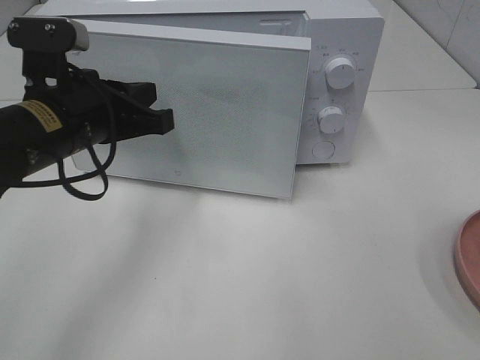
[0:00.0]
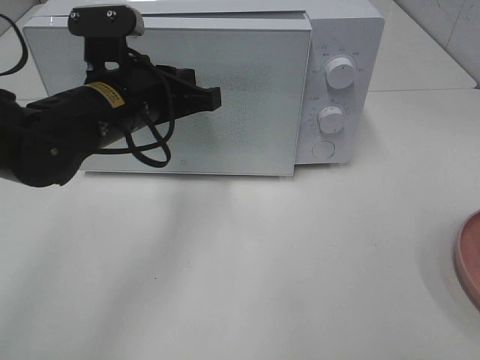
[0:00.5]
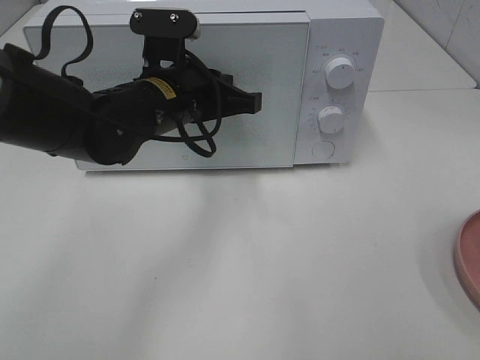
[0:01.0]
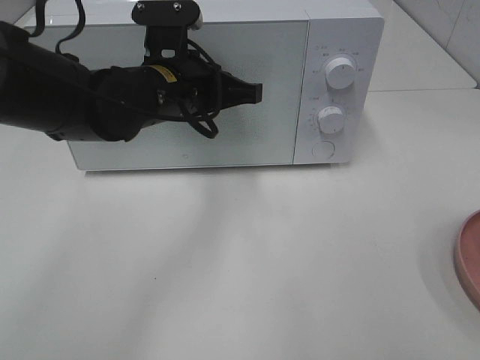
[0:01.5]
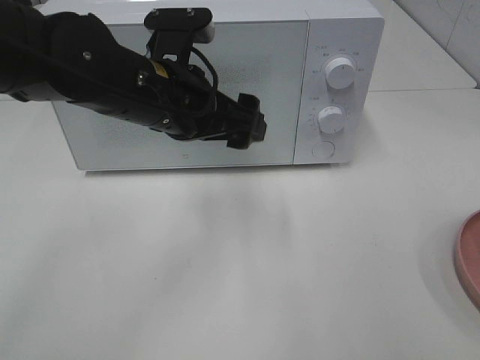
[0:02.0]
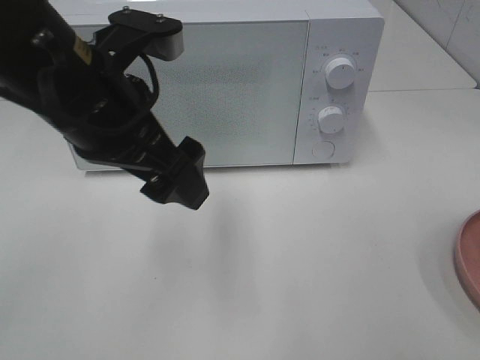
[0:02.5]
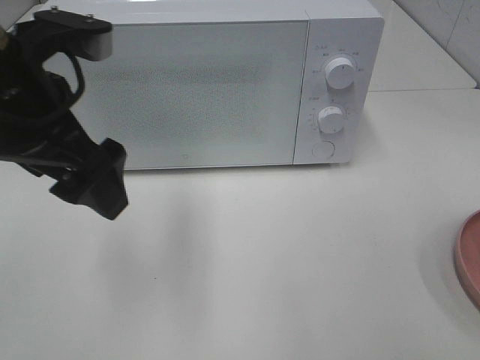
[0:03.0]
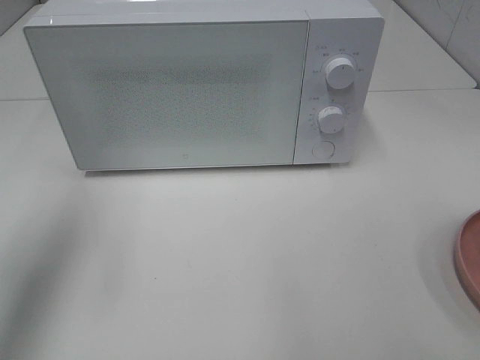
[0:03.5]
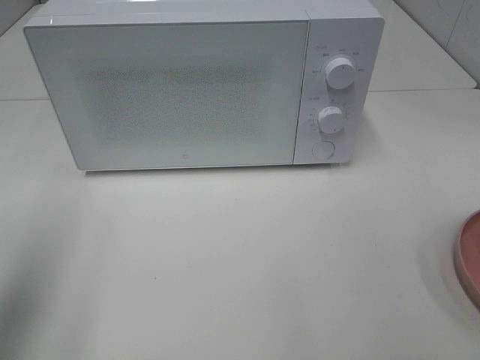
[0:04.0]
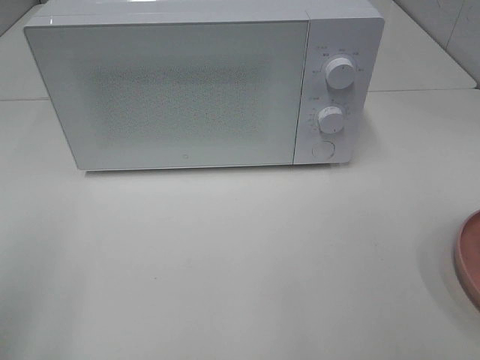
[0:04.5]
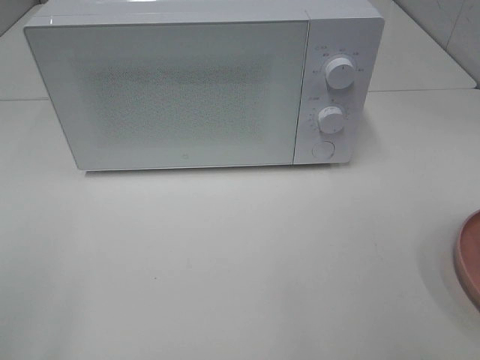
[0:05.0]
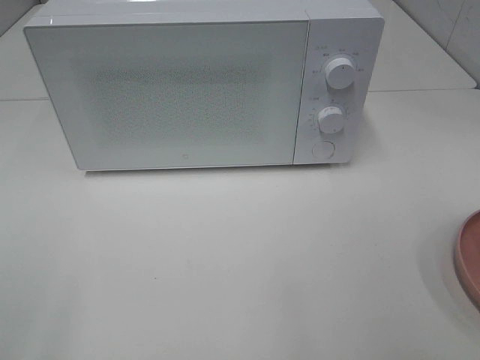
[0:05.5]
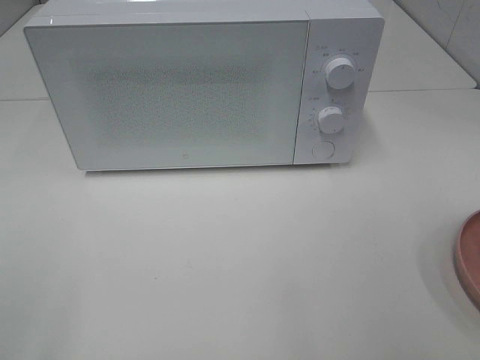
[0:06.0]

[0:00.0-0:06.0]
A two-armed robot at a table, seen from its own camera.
Task of the whole recording: Heat the burger.
0:00.0 to 0:02.0: The left gripper goes roughly 10 cm to the right, and opens up.
0:02.0 to 0:04.0: The left gripper travels to the left and backward by about 25 cm.
0:04.0 to 0:06.0: The left gripper is displaced backward by approximately 15 cm.
